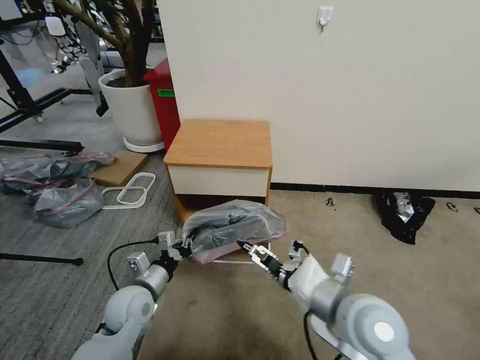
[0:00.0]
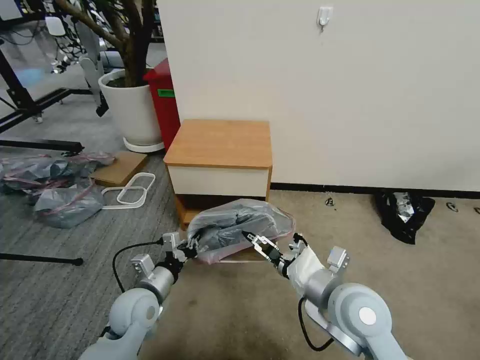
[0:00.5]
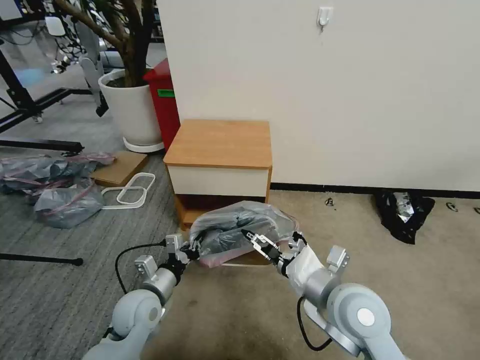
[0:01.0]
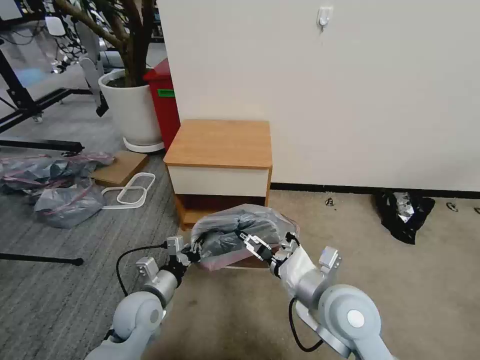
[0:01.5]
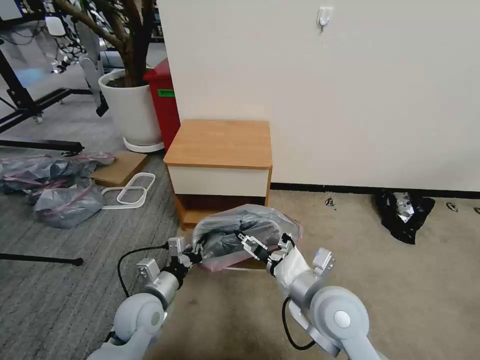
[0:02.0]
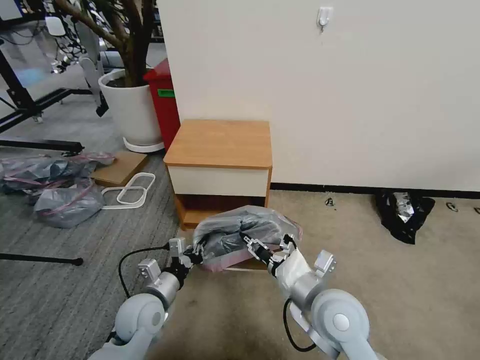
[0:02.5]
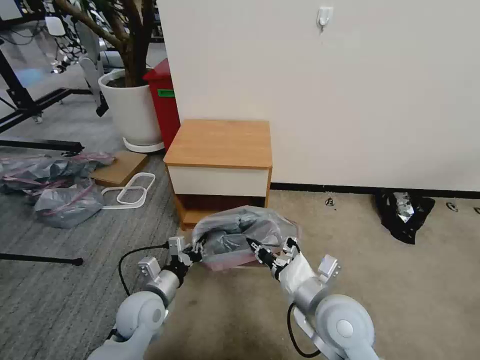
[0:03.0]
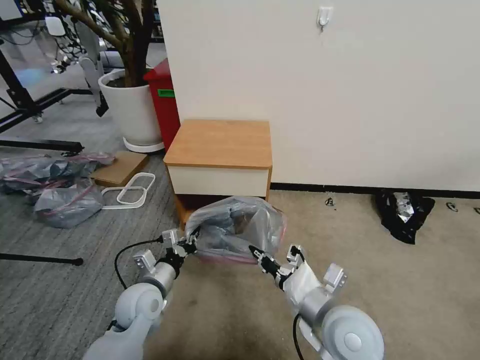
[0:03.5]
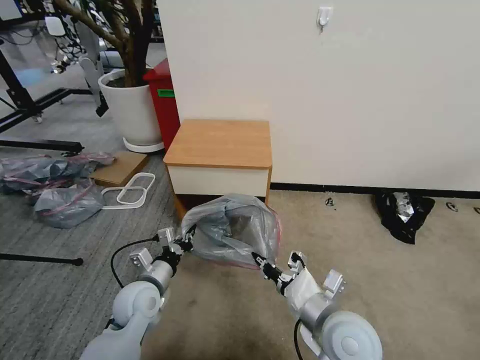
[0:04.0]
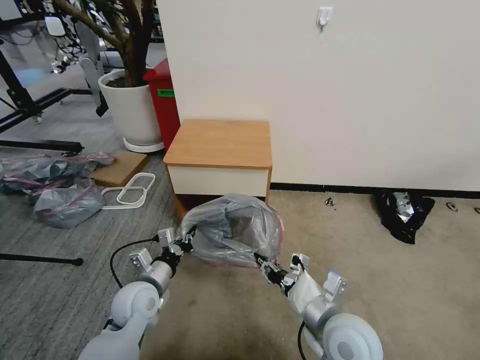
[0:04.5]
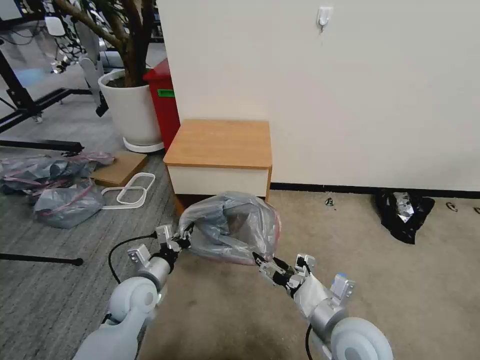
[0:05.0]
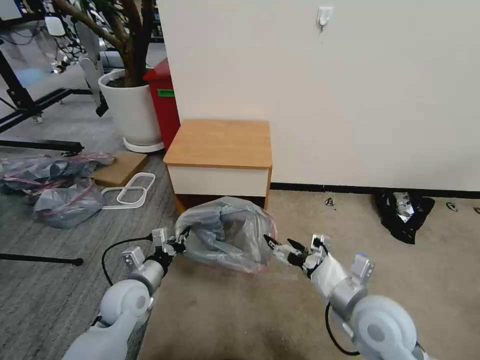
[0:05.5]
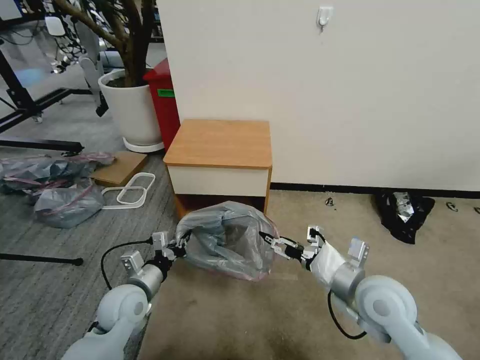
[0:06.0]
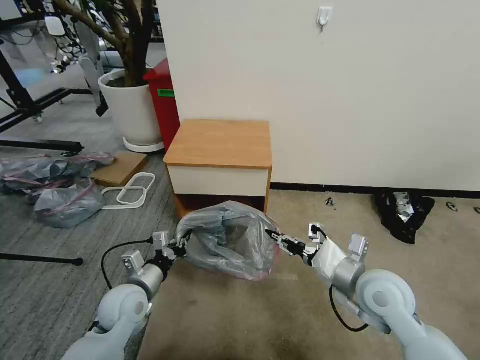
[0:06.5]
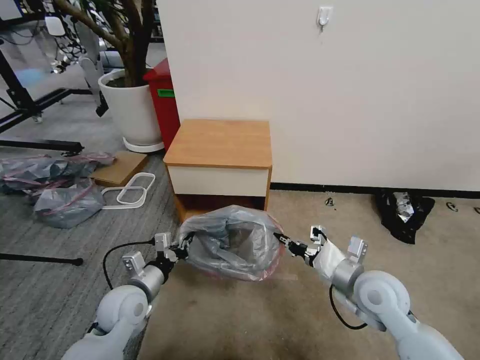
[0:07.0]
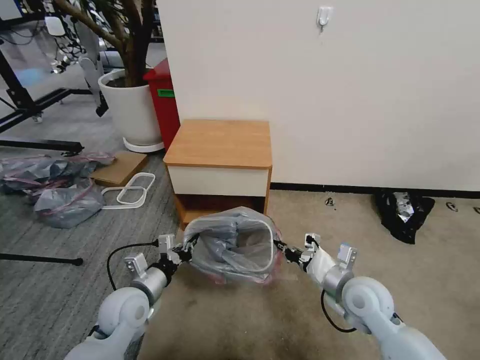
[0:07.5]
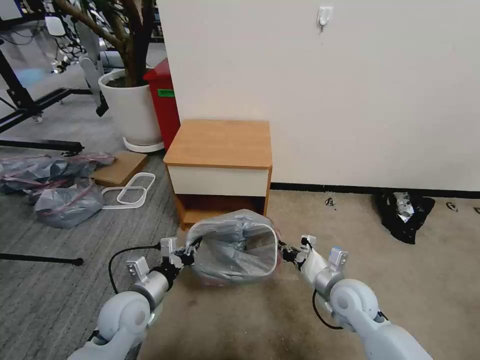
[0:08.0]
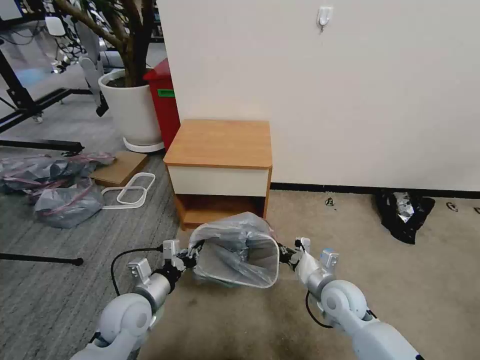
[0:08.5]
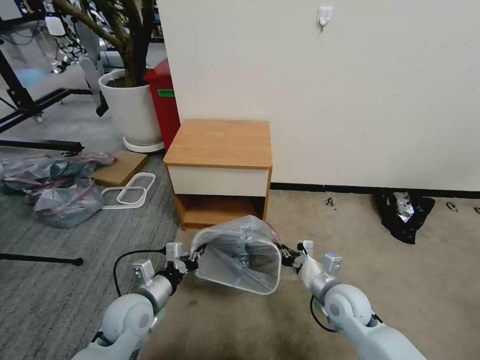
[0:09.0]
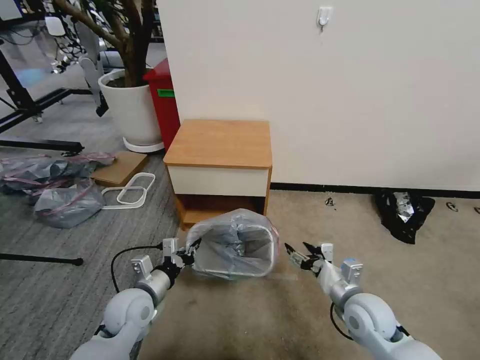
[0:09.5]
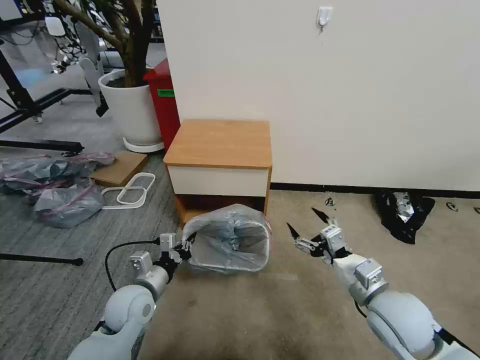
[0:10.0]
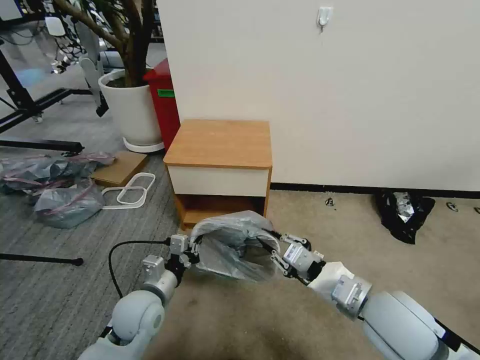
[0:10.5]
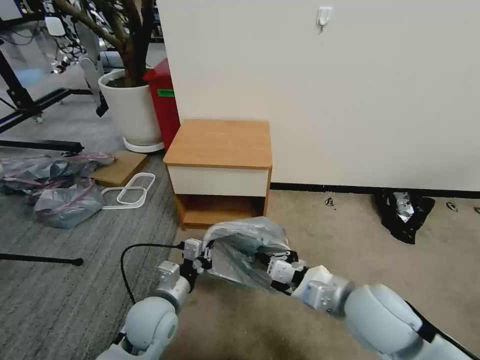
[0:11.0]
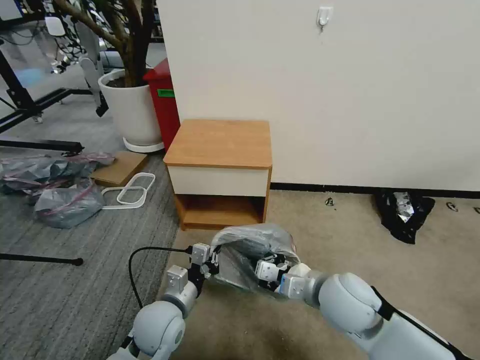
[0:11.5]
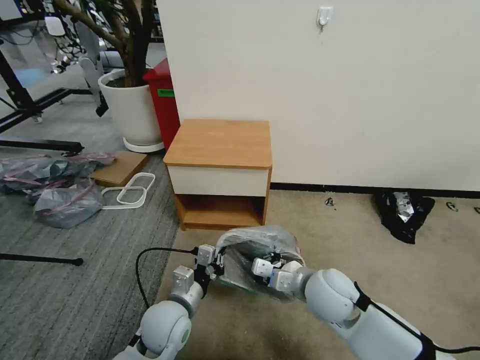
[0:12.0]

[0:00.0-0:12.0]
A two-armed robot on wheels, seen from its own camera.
Task of the whole recording: Pick up the garbage bag from the table and place it over the trash can.
0:00.0 to 0:02.0: The grippers make only small movements.
0:02.0 to 0:04.0: The right gripper changes place by about 5 cm, and closes.
0:04.0 to 0:06.0: The right gripper heads to the right and forward, covering roughly 10 cm, and opens its fingers.
0:06.0 to 0:08.0: The right gripper is displaced downward by approximately 10 cm, and closes its fingers.
0:08.0 to 0:10.0: The right gripper is displaced upward and backward by some 10 cm, and opens its fingers.
0:10.0 to 0:12.0: The right gripper shifts some 10 cm to the left, and closes its fingers. The left gripper moves to the right, roughly 10 cm.

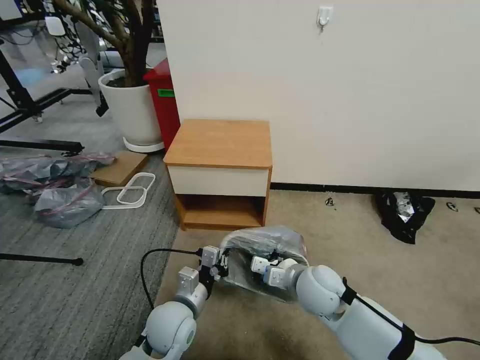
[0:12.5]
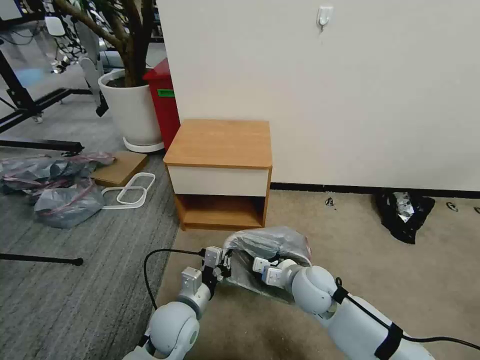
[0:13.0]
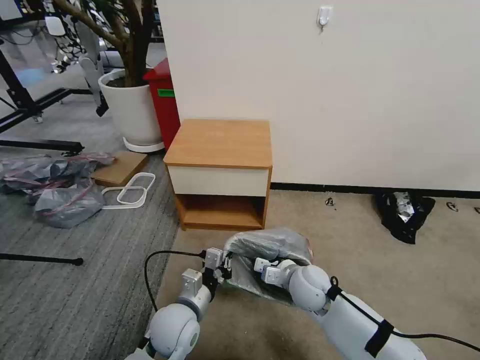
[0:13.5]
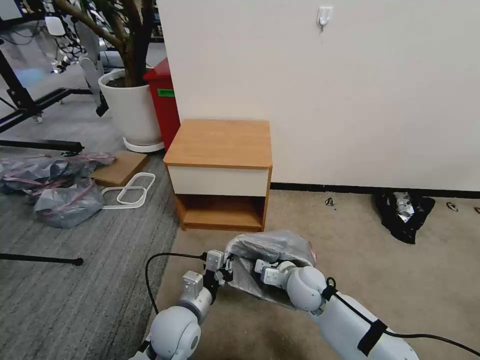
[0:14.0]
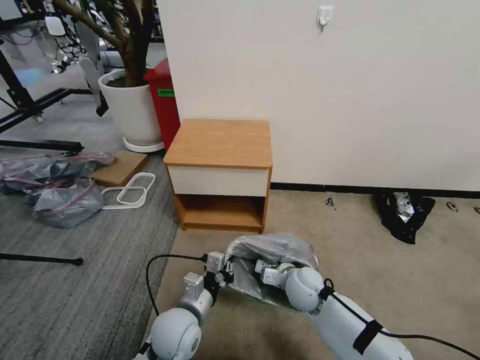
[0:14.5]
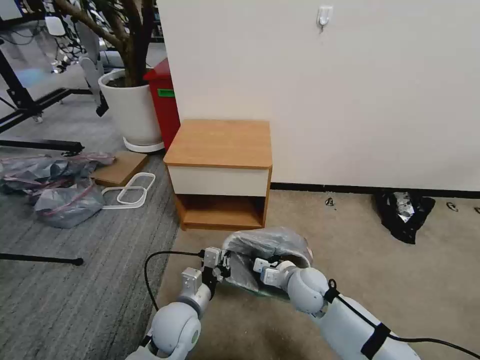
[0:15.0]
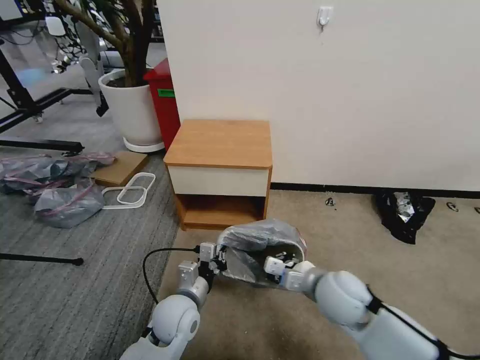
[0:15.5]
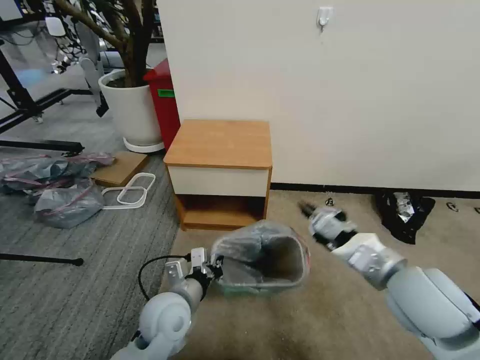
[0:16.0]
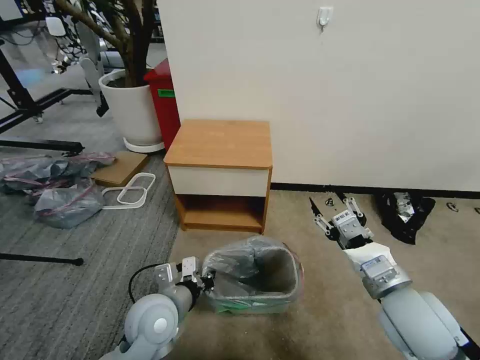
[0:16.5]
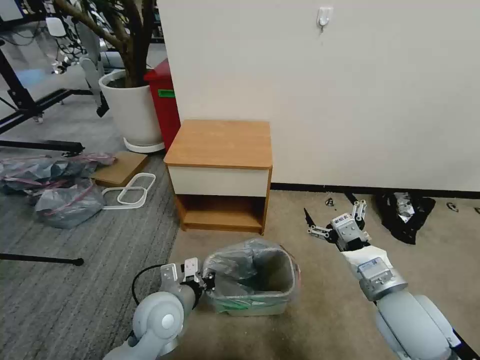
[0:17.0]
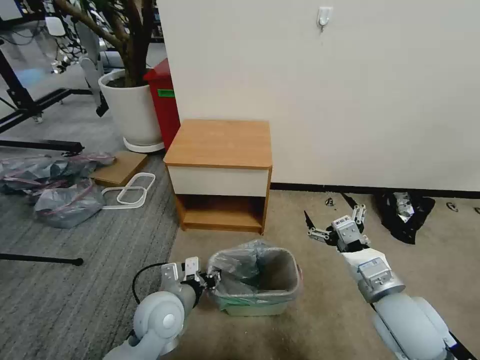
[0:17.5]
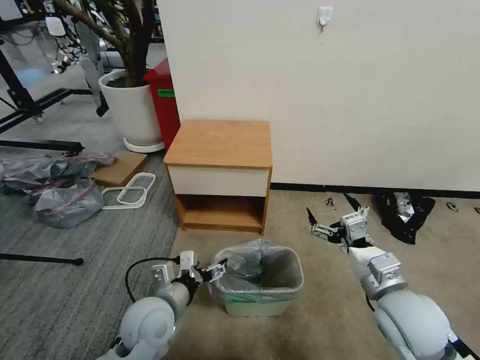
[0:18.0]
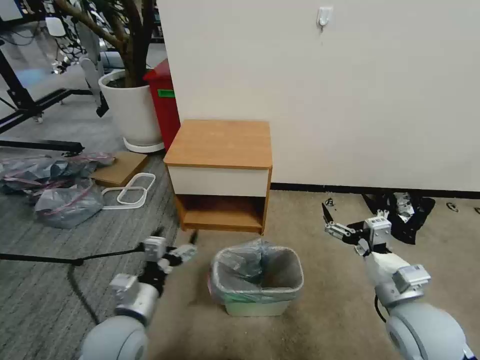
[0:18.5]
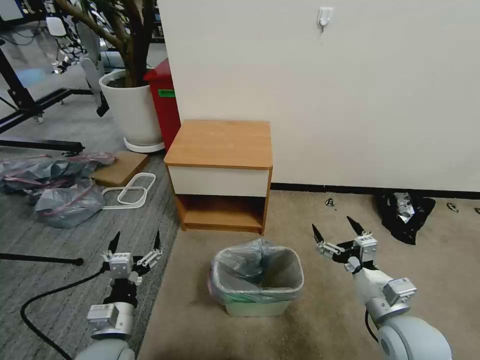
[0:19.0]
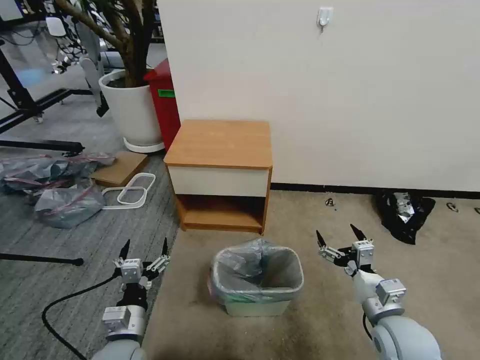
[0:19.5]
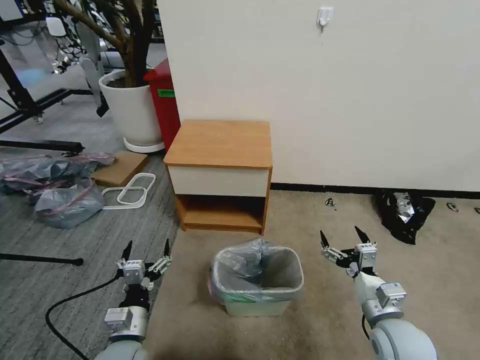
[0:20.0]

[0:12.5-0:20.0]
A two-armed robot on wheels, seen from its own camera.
Task of the whole recording: Pick up the garbage bag from the table and place it over the trash can.
0:12.5 to 0:14.5: The right gripper goes roughly 10 cm downward.
0:14.5 to 0:16.5: The right gripper travels upward, to the right and backward by some 25 cm, and opens up; the left gripper heads upward, covering approximately 5 cm.
0:16.5 to 0:18.0: The right gripper opens. The left gripper opens up.
0:18.0 to 0:20.0: The left gripper travels downward, backward and to the left by some 10 cm; the right gripper heads downward, covering roughly 10 cm.

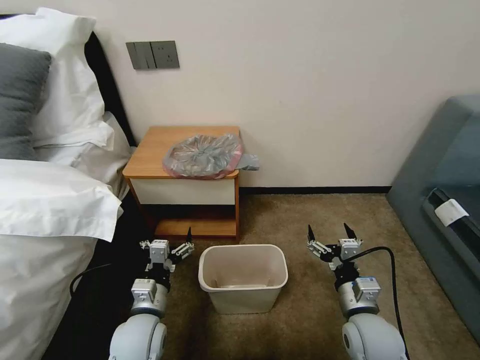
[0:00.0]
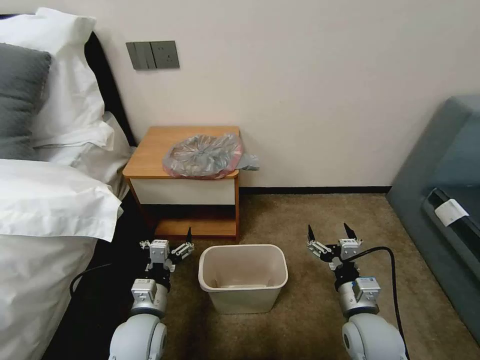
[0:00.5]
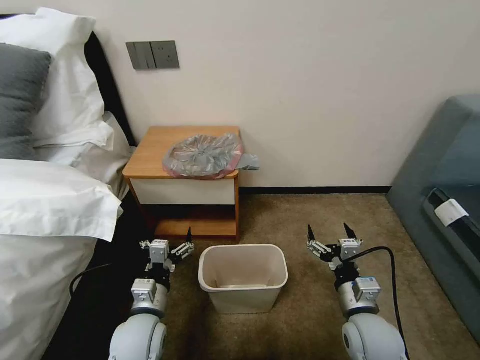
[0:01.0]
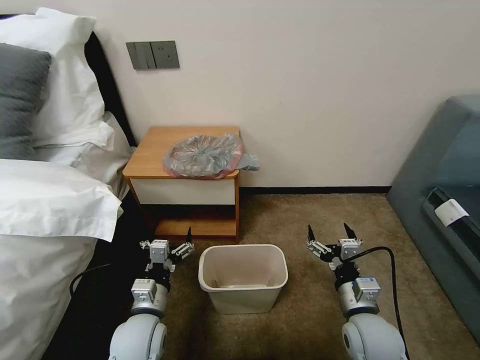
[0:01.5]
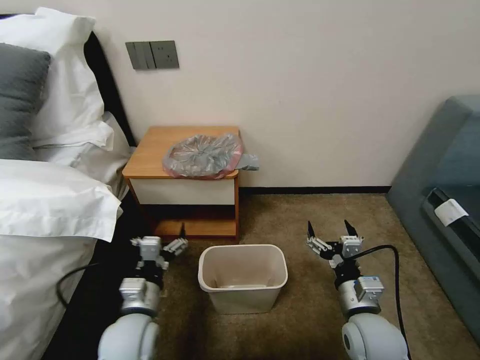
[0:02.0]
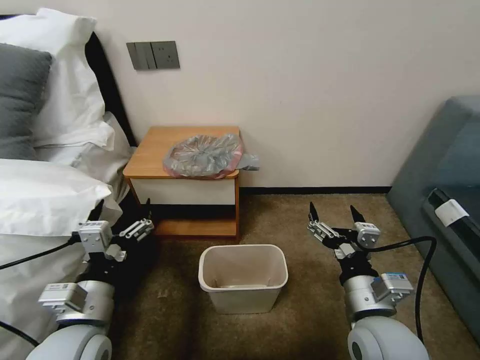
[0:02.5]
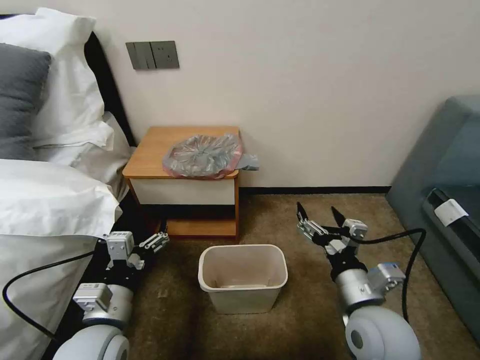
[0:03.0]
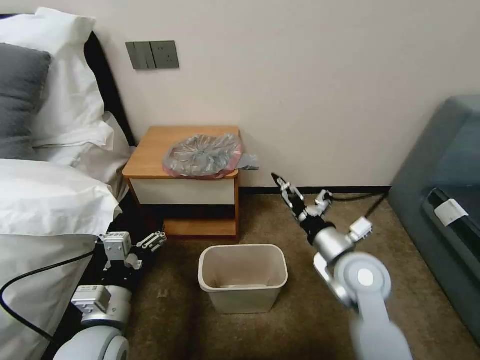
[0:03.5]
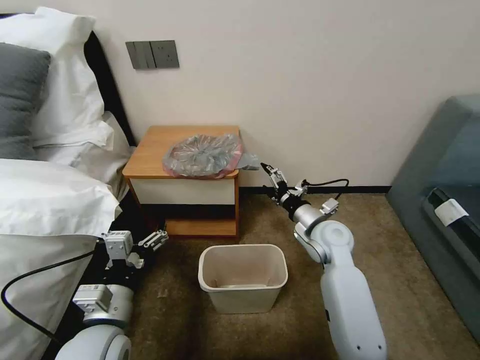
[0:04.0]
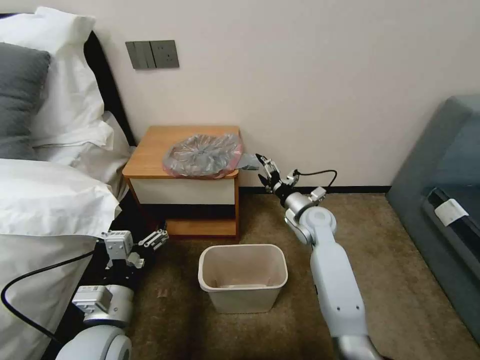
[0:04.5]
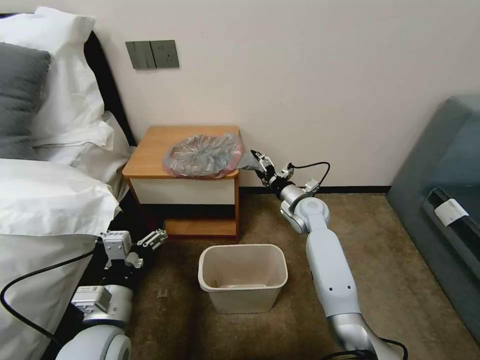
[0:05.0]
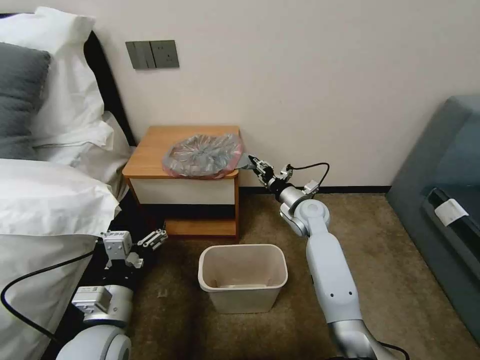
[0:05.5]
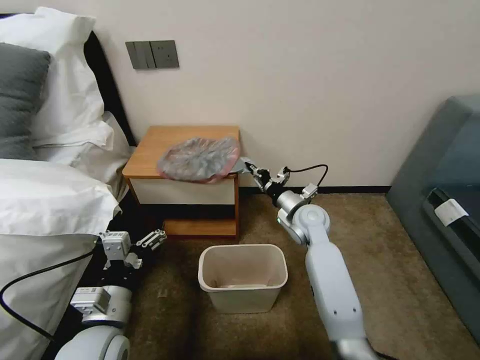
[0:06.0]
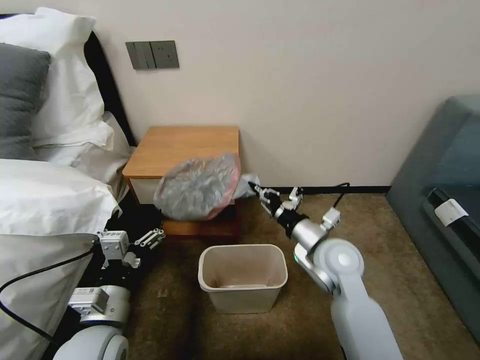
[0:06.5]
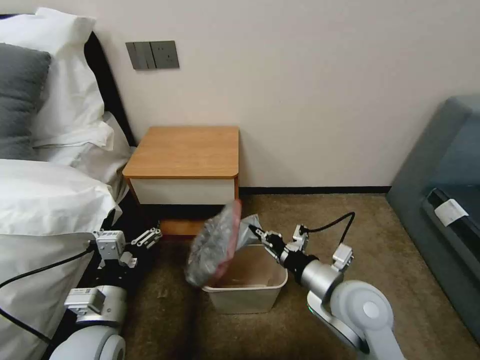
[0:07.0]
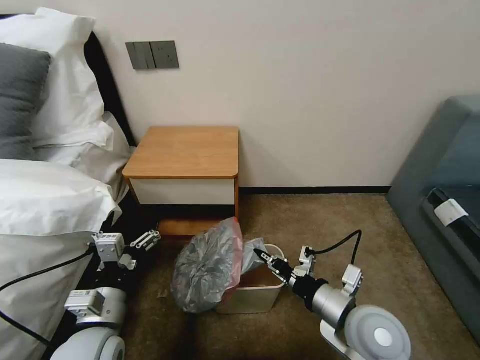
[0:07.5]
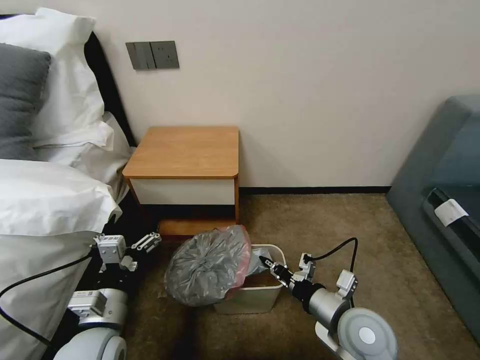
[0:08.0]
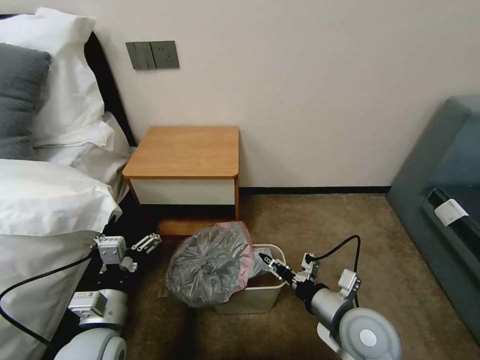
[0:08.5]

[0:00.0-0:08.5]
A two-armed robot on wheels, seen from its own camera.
Task of the whole recording: Pick up the garbage bag from the table and place it over the trash can.
0:02.0 to 0:04.0: The left gripper is displaced upward by approximately 5 cm. The right gripper shifts approximately 20 cm forward.
0:04.0 to 0:06.5: The right gripper travels backward by some 5 cm, and closes its fingers.
0:06.5 to 0:08.5: The right gripper is displaced backward by some 15 cm, and opens up.
